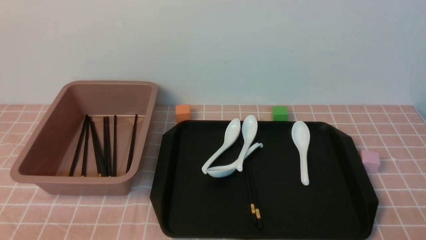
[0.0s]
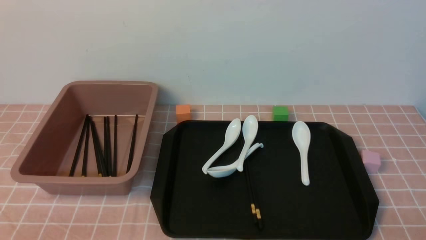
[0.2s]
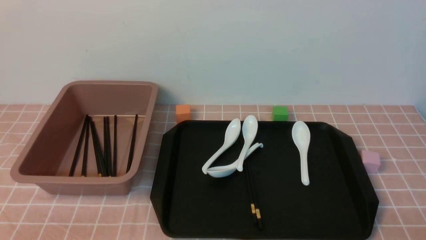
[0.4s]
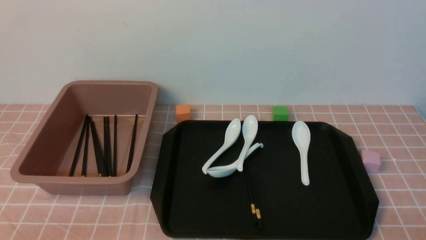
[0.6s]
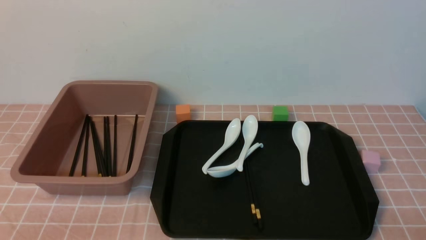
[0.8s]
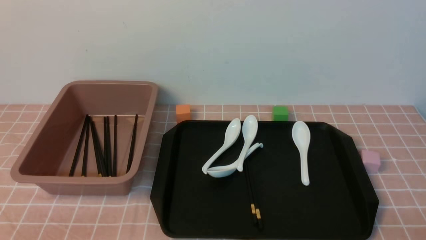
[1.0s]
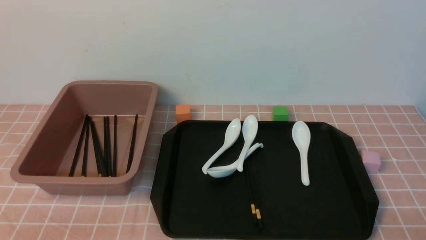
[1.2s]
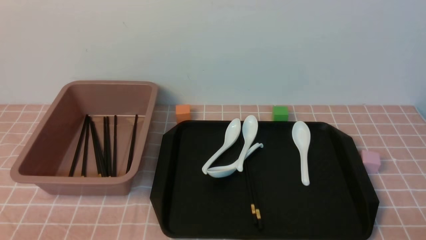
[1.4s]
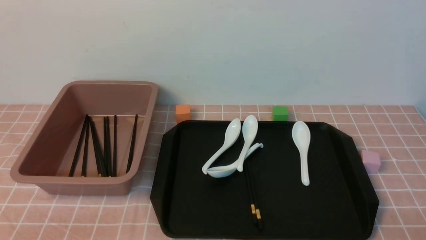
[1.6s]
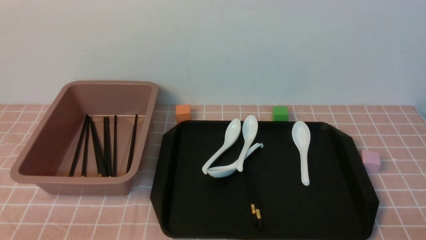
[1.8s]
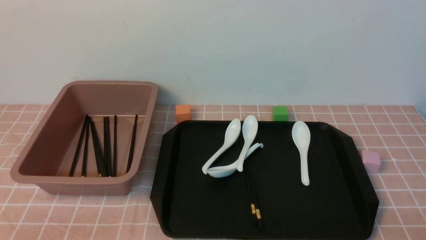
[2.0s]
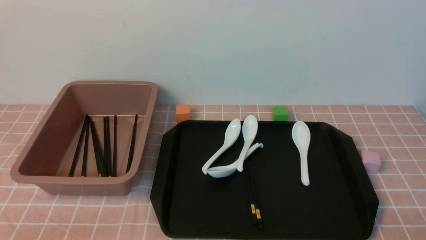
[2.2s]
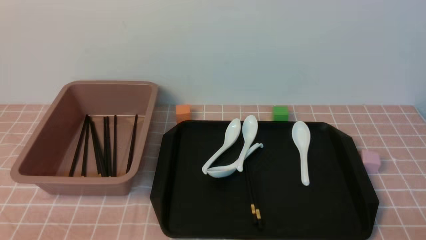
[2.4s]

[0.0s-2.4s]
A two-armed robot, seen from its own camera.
1.2s to 2.4s: Both grippers stay about where they are.
